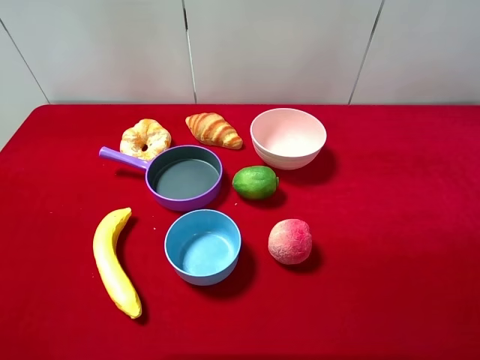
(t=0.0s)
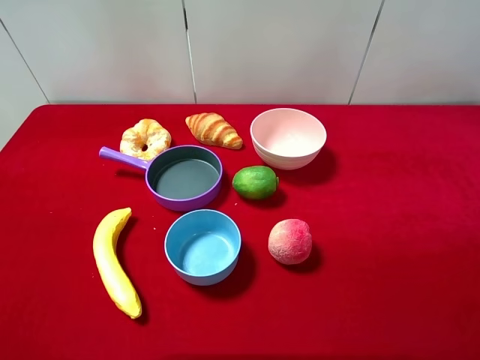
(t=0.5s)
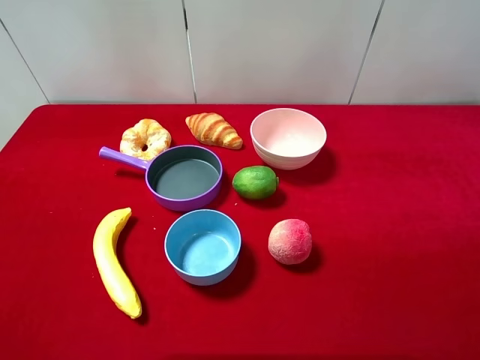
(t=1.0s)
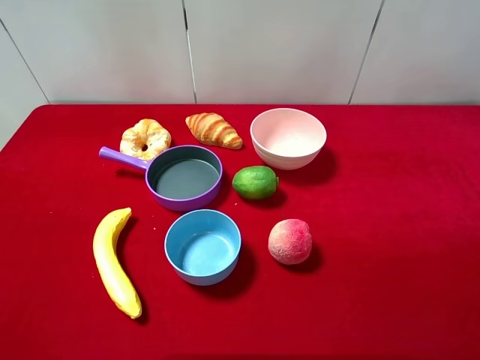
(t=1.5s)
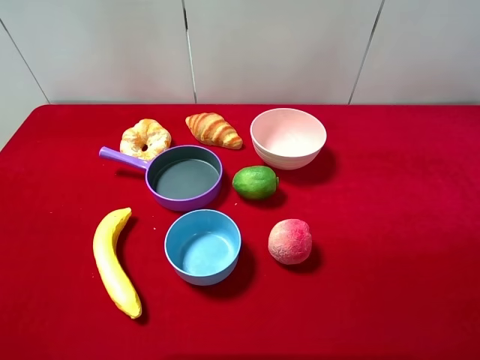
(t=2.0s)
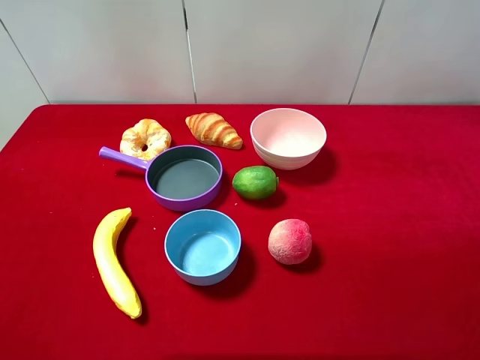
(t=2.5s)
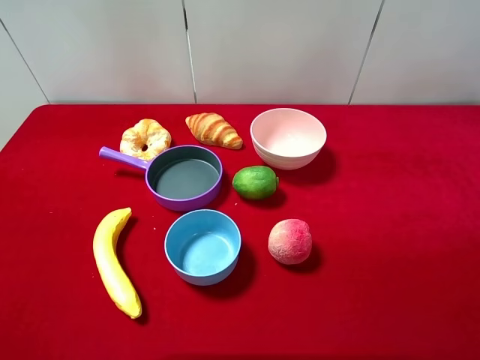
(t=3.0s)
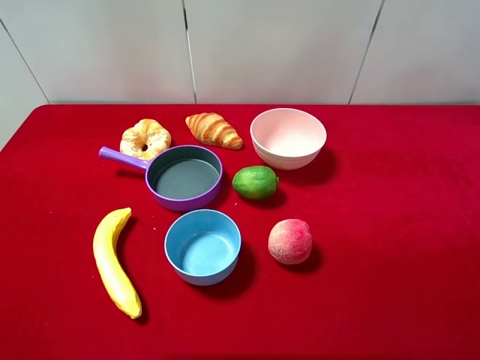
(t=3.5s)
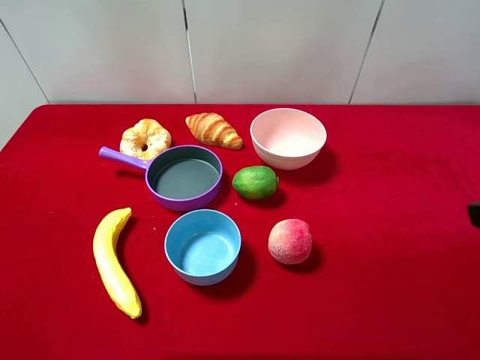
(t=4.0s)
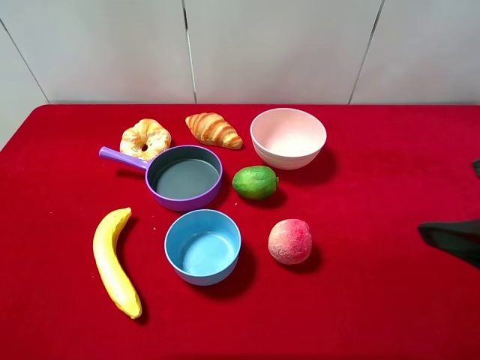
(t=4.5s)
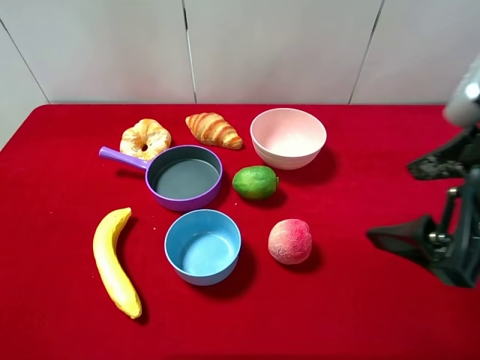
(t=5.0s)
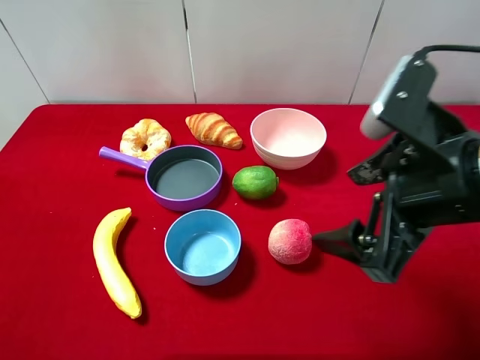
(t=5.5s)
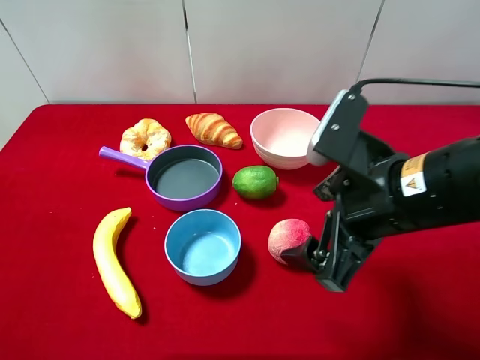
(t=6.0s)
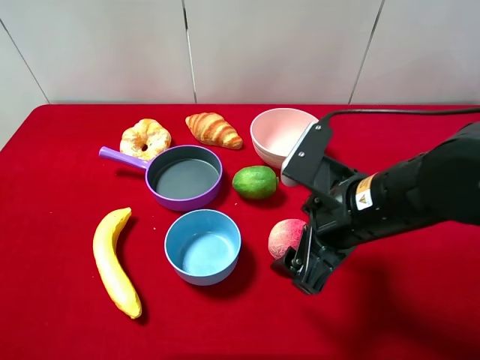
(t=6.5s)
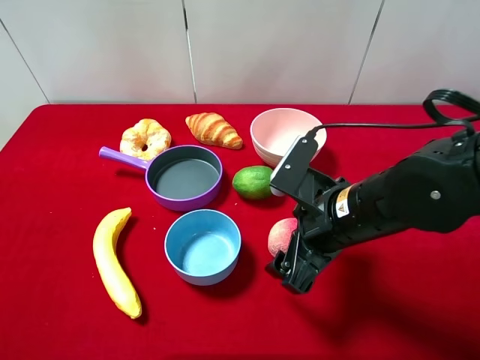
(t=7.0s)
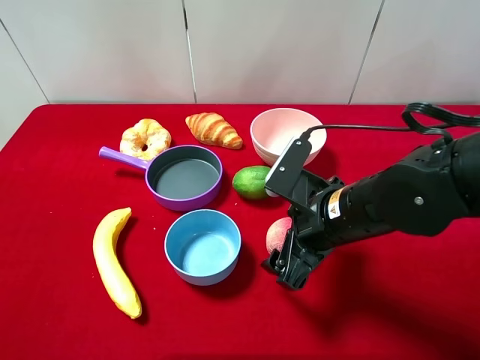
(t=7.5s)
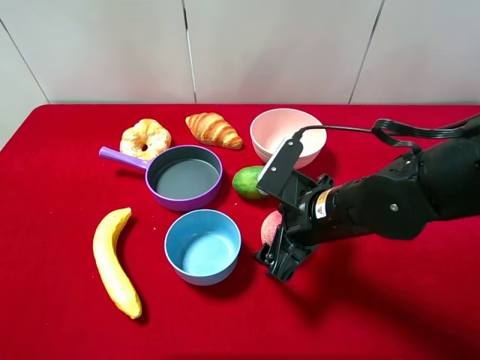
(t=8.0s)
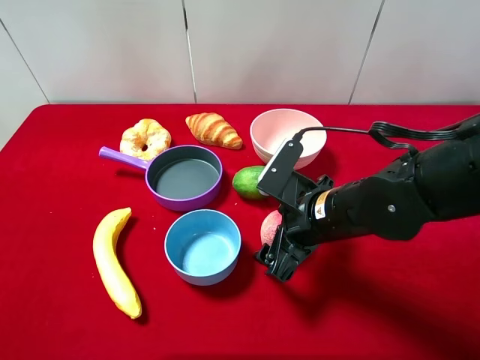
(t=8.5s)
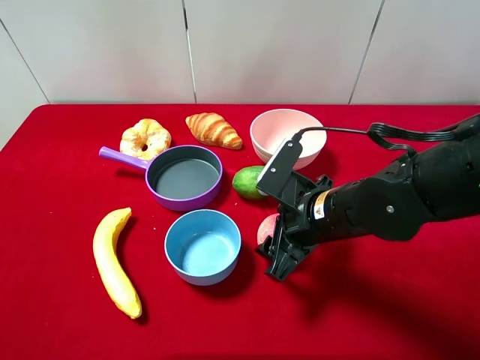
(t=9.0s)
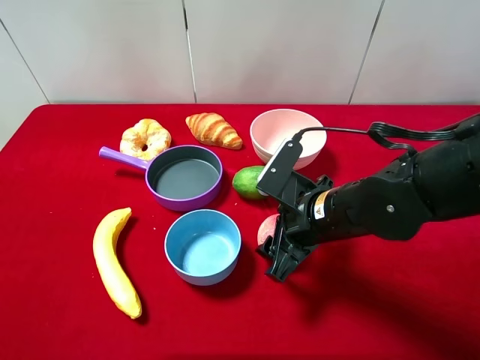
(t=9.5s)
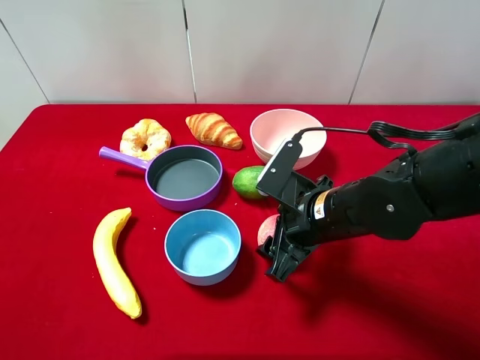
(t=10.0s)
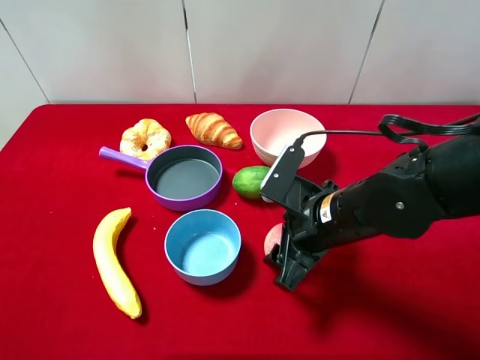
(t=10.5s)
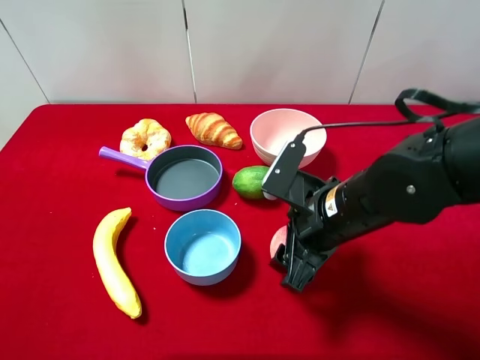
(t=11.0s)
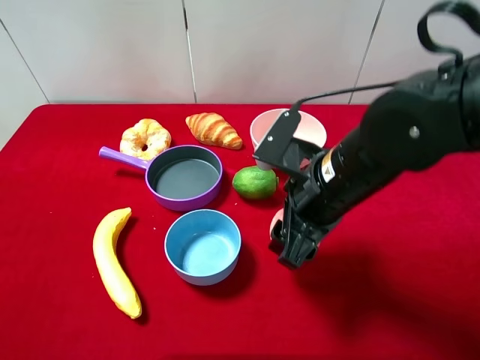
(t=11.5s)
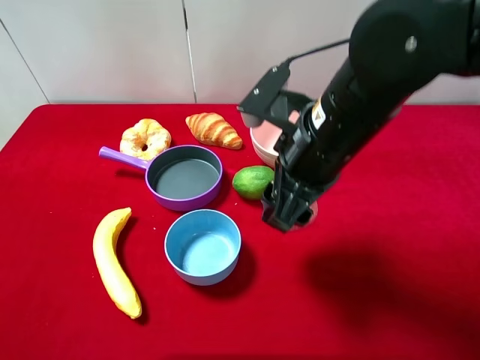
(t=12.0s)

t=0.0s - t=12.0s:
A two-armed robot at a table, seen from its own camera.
Task of the whole recording: pick up an item with a gripper and place it in a random container on the desktop.
t=0.0s - t=2.0s: Both grippers stay about where they are.
t=4.0s - t=6.0s: The right gripper goes about 15 cm to the left, downward and forward.
t=6.0s - t=8.0s: The right gripper goes some 10 cm downward.
t=8.0s - t=10.0s: The right gripper closes.
t=10.0s - t=12.0s: The right gripper shifts some 10 cm upward.

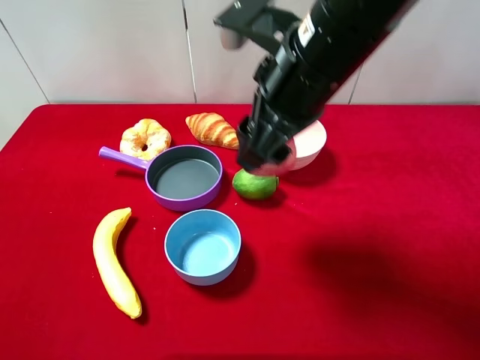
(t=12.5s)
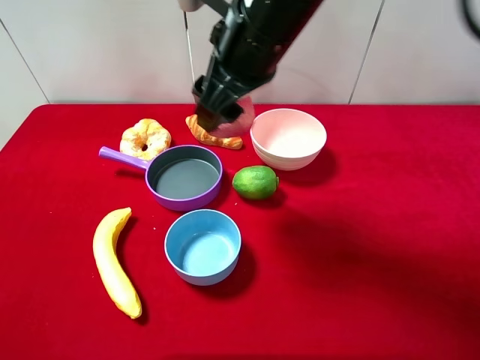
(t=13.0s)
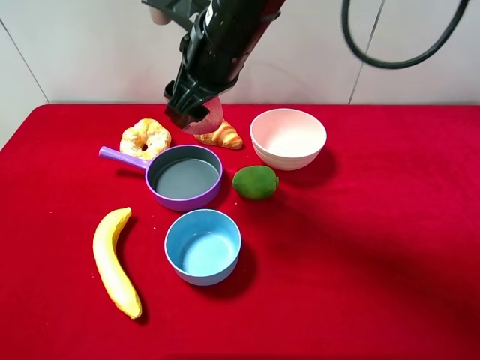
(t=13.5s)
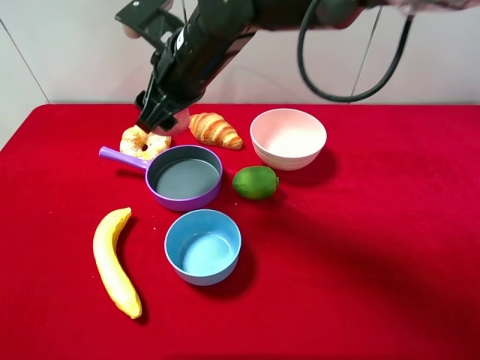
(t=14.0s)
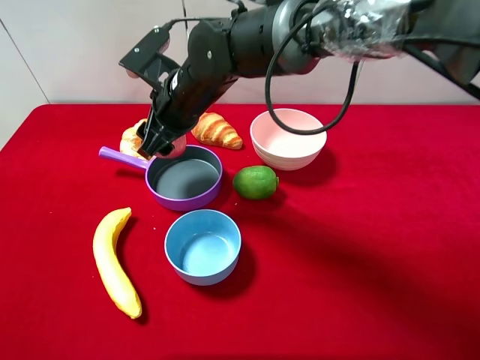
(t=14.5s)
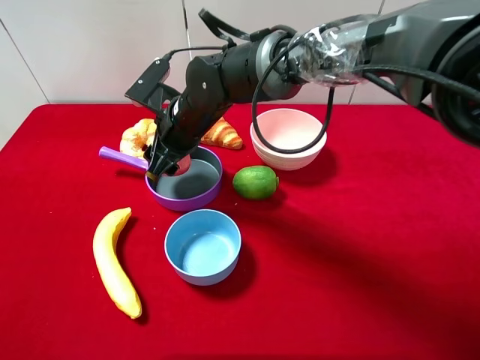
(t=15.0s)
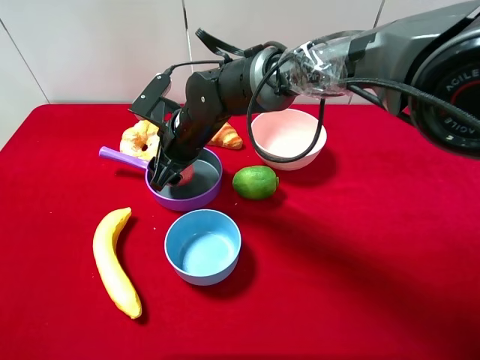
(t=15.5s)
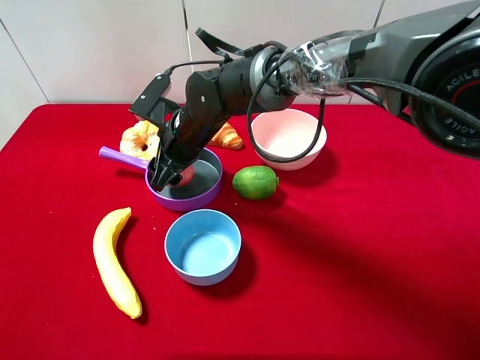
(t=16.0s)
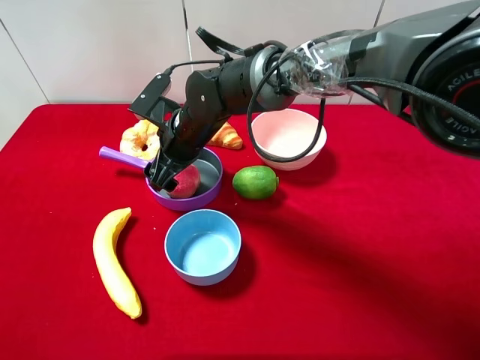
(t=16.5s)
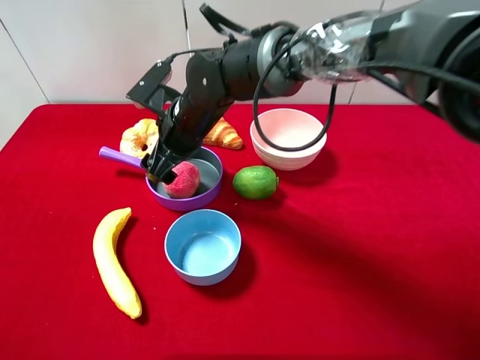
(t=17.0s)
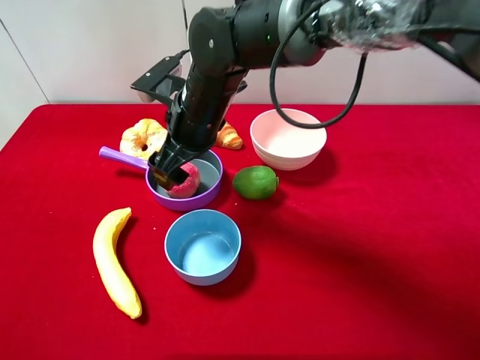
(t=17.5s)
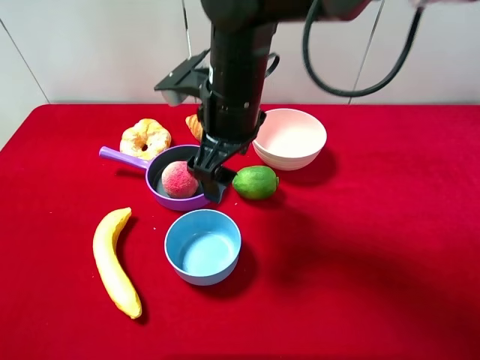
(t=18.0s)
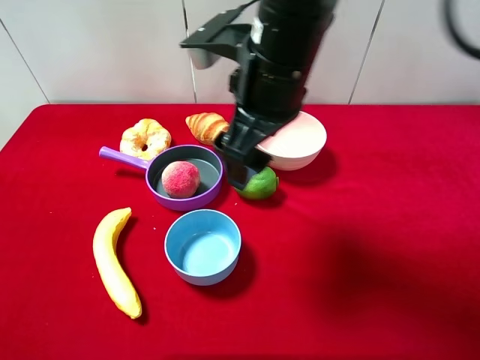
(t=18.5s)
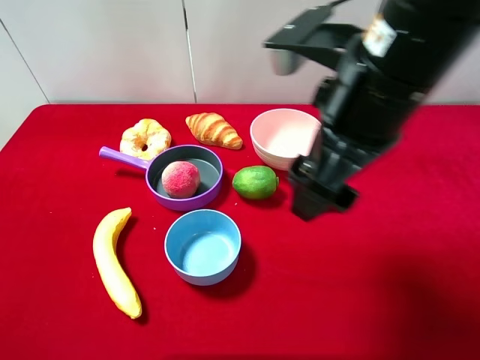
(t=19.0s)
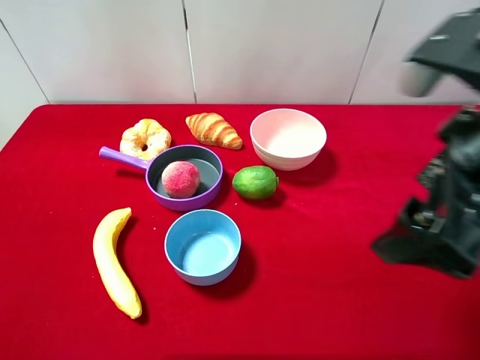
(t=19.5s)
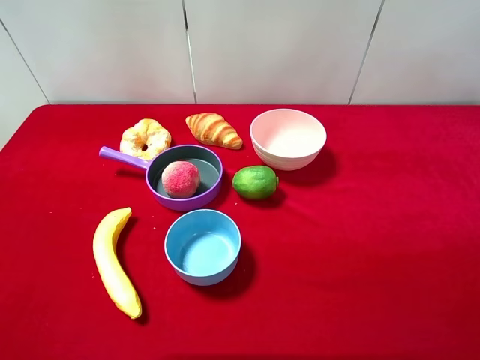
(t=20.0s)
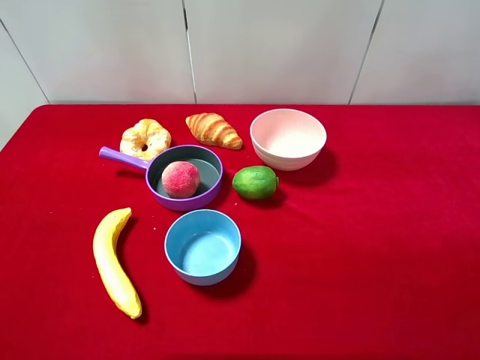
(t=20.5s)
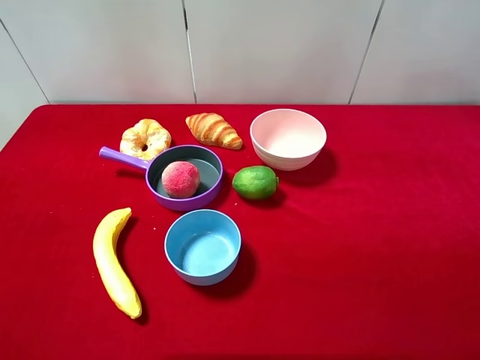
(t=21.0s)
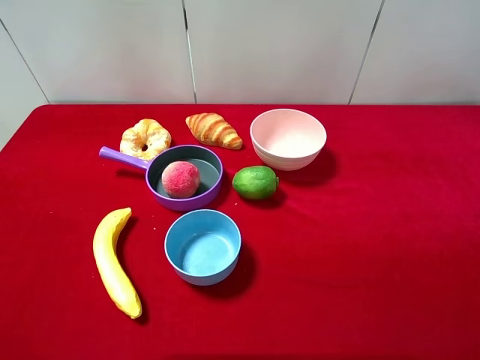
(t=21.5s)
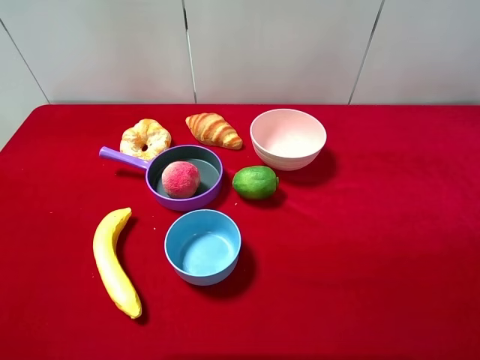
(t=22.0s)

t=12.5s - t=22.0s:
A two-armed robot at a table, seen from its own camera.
Task of the whole recording: pick up an item with a gripper and place it in a random container on the desktop.
t=12.5s - t=14.5s: The right gripper heads to the left, downward and forward, covering about 20 cm.
t=14.5s - t=16.5s: The right gripper heads downward, covering some 5 cm, and opens its fingers.
t=16.5s - t=18.0s: The right gripper goes some 15 cm upward, to the right and backward.
t=18.0s - t=20.0s: The right gripper heads to the right and backward, covering approximately 35 cm.
